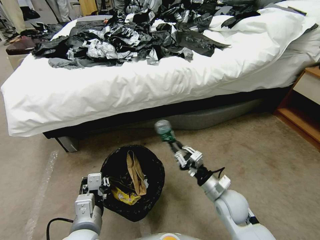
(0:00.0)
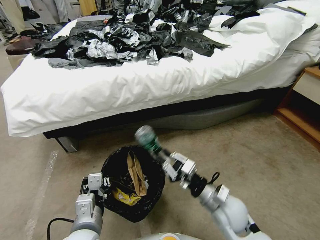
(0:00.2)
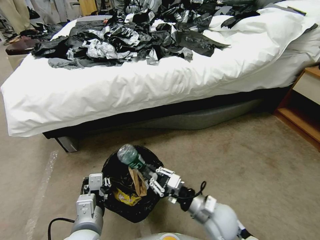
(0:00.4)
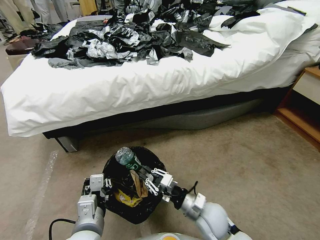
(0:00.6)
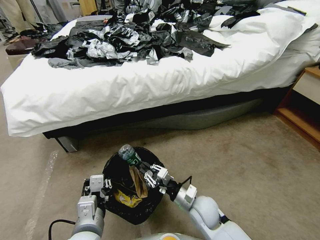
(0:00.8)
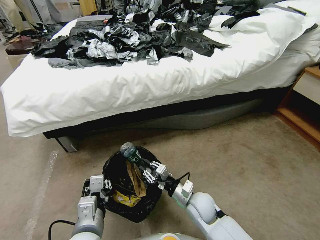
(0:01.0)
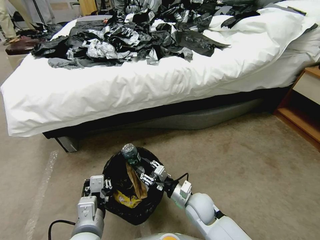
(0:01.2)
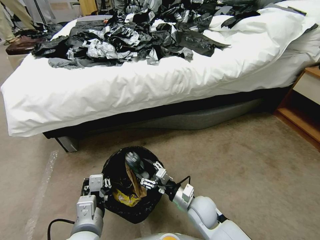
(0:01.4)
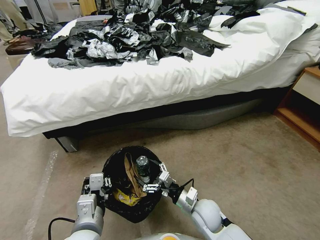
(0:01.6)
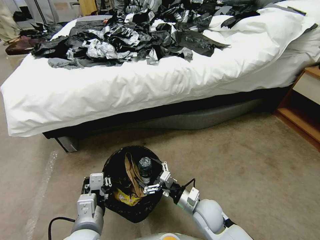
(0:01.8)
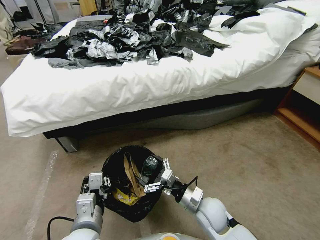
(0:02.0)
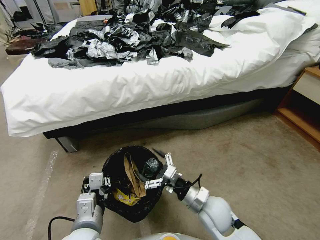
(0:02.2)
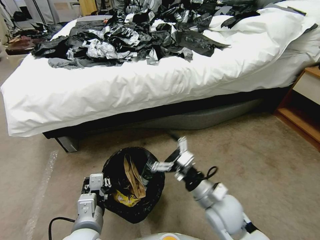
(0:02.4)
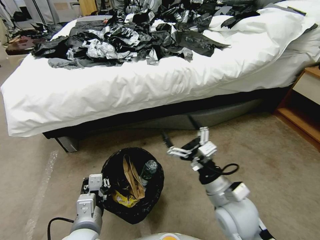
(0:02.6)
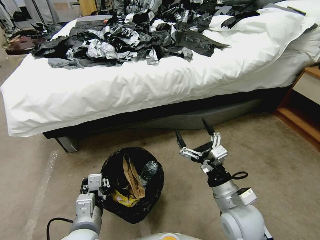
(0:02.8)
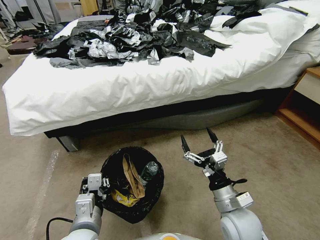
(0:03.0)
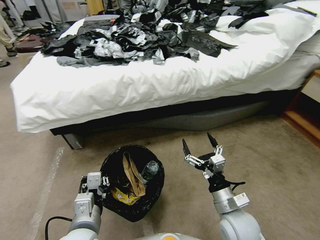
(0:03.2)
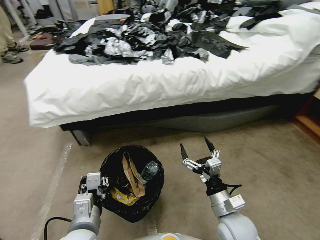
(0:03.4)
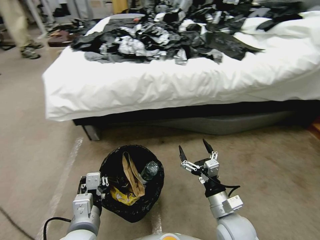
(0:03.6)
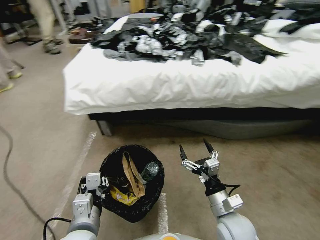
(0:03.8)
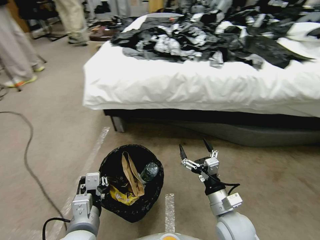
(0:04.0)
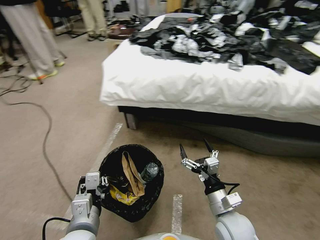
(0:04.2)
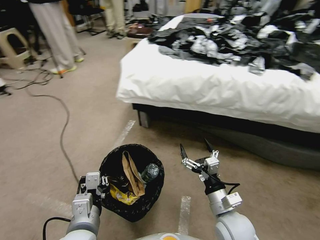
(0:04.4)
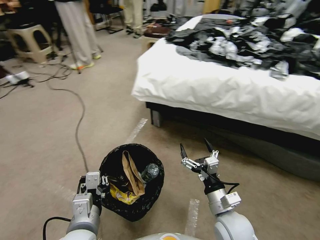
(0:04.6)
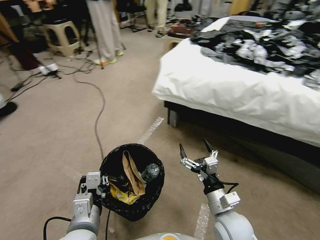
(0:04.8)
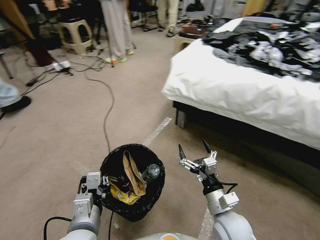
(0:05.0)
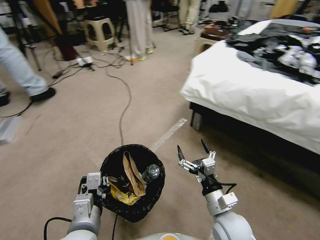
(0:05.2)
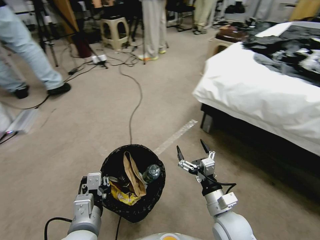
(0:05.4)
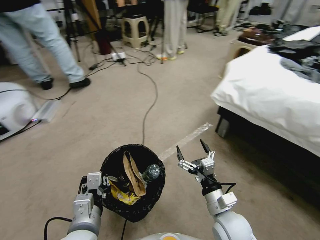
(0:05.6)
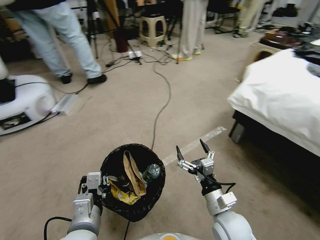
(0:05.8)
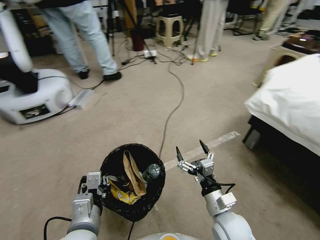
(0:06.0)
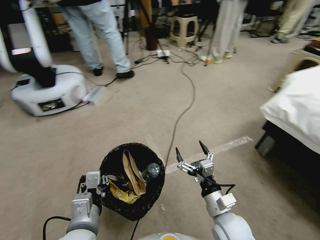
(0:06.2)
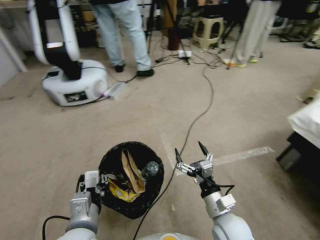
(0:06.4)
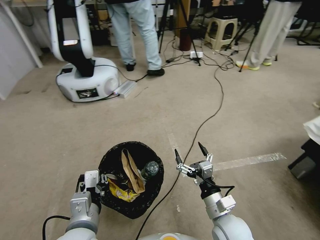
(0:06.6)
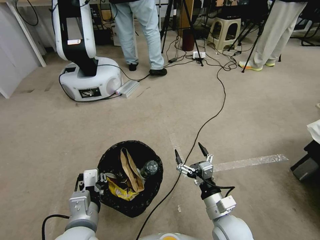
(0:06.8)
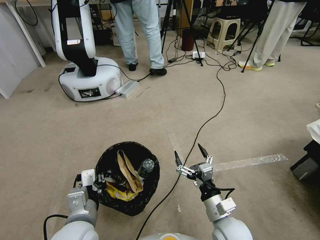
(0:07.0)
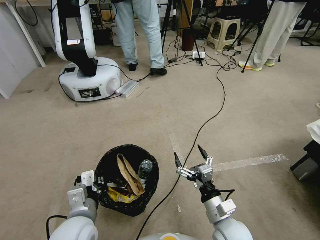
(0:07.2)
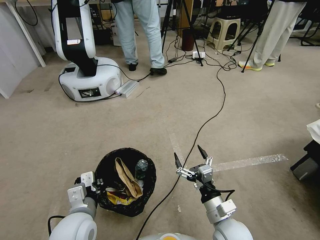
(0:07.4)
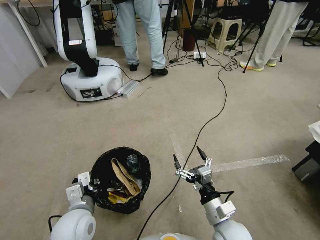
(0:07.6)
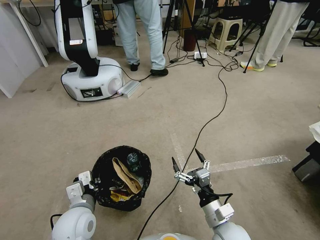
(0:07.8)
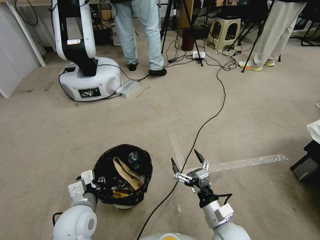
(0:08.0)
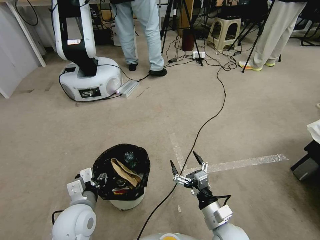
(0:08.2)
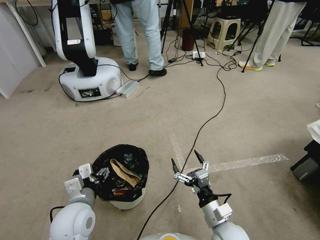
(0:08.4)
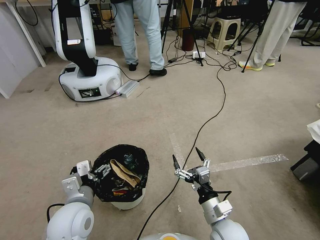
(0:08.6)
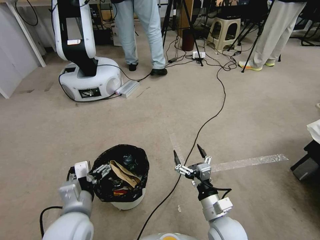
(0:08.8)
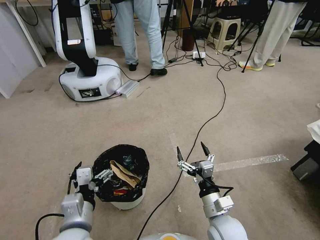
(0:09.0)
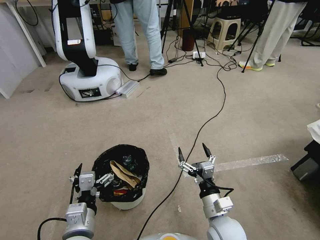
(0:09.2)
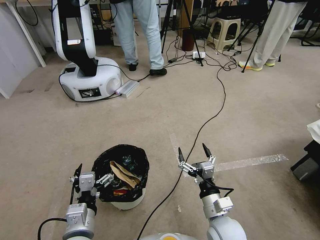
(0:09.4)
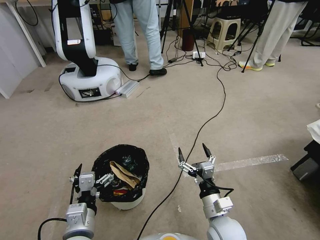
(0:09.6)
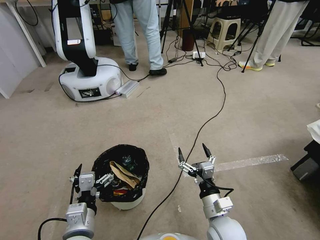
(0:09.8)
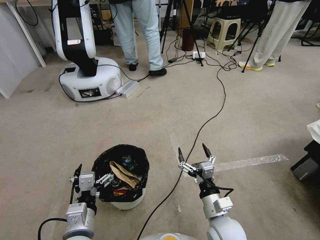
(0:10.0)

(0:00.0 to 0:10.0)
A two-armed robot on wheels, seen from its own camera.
Task of the whole recording: Pick up the trash bin, then pick up the garbage from the floor and place it into the trash bin.
0:00.0 - 0:01.4: The right gripper shifts about 10 cm to the left, and opens.
0:01.4 - 0:02.8: The right gripper moves upward and to the right, about 15 cm, and opens.
0:02.8 - 0:04.2: The right gripper moves downward, approximately 5 cm.
0:07.2 - 0:08.6: The left gripper shifts by about 5 cm, and opens.
0:08.6 - 0:10.0: The left gripper is displaced backward by some 5 cm.
